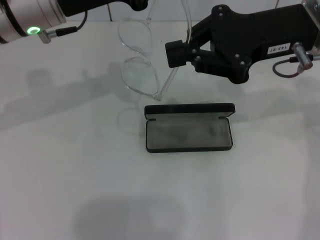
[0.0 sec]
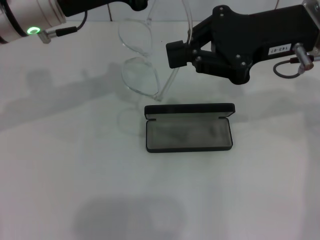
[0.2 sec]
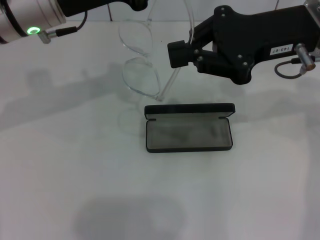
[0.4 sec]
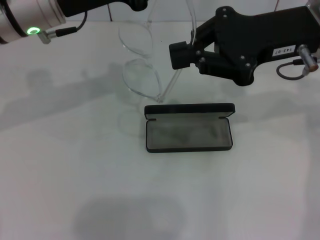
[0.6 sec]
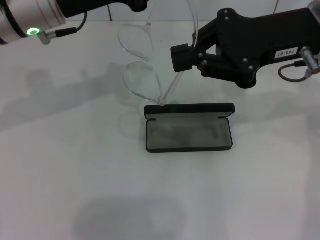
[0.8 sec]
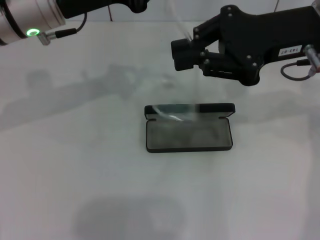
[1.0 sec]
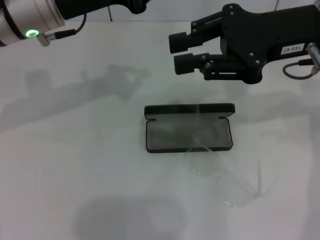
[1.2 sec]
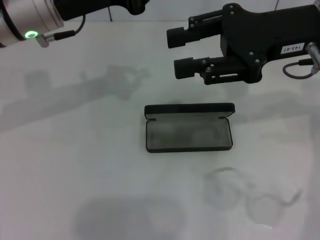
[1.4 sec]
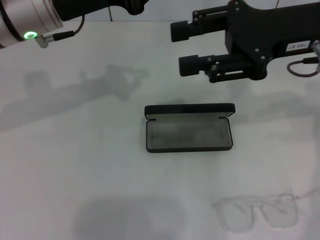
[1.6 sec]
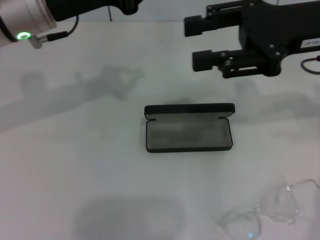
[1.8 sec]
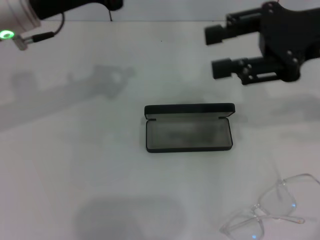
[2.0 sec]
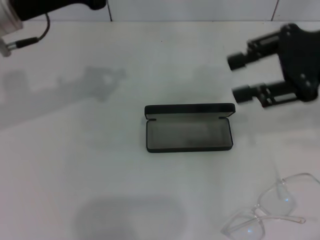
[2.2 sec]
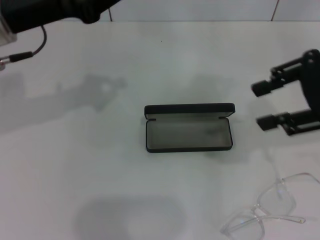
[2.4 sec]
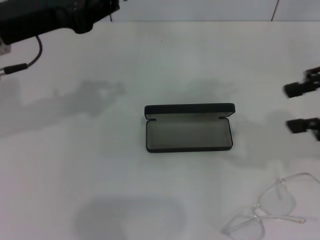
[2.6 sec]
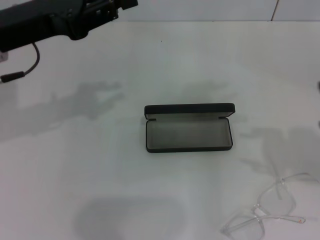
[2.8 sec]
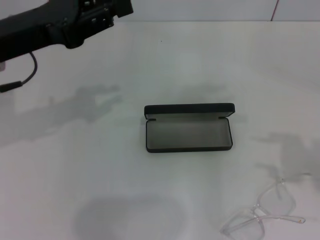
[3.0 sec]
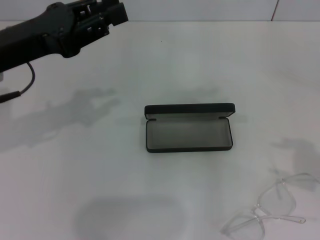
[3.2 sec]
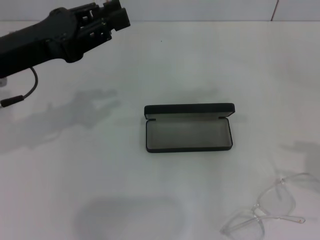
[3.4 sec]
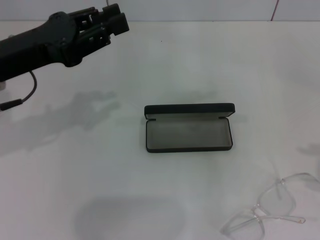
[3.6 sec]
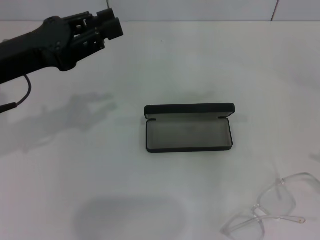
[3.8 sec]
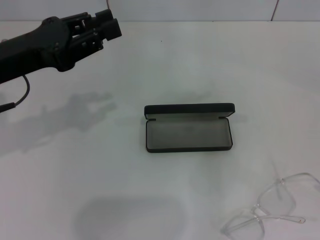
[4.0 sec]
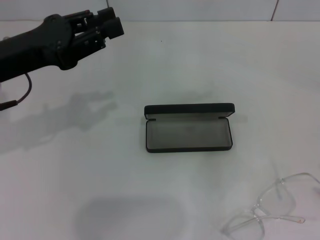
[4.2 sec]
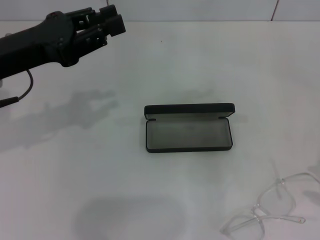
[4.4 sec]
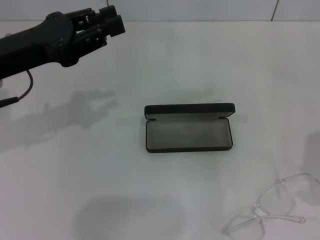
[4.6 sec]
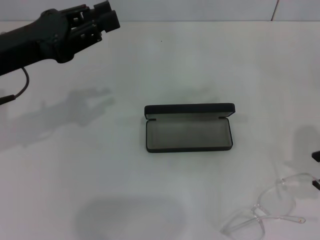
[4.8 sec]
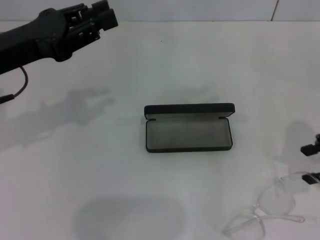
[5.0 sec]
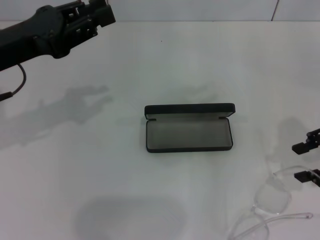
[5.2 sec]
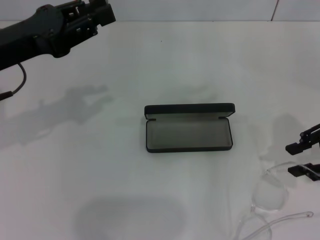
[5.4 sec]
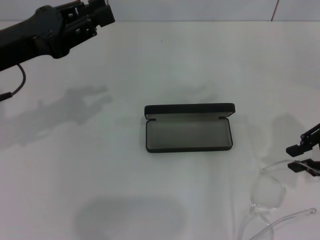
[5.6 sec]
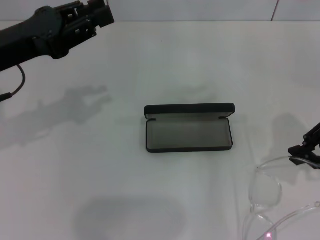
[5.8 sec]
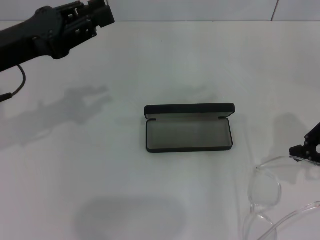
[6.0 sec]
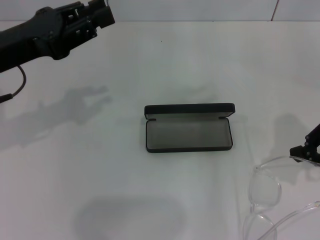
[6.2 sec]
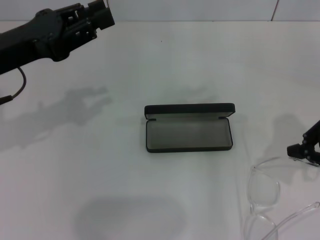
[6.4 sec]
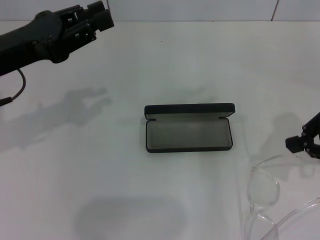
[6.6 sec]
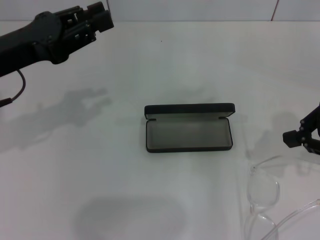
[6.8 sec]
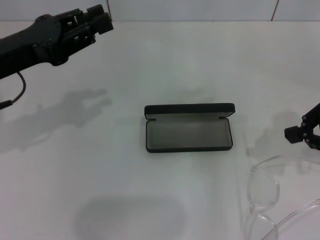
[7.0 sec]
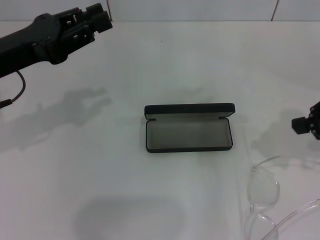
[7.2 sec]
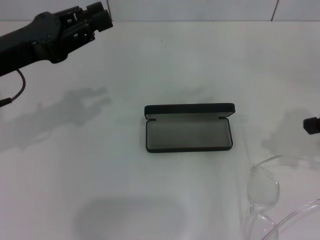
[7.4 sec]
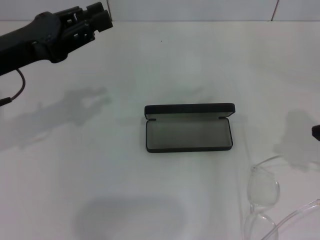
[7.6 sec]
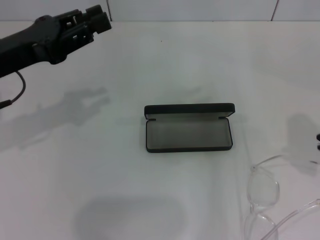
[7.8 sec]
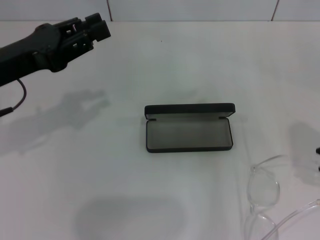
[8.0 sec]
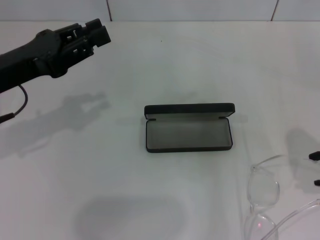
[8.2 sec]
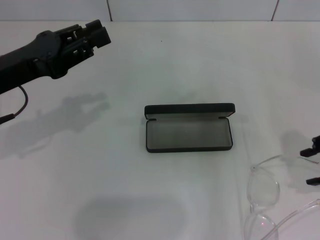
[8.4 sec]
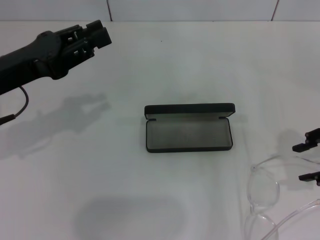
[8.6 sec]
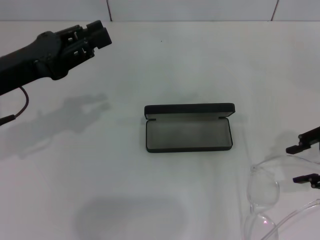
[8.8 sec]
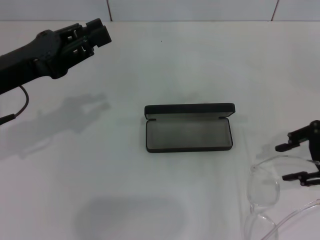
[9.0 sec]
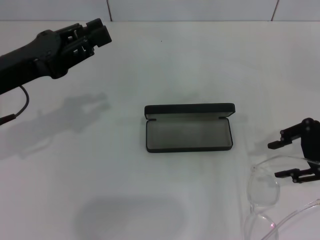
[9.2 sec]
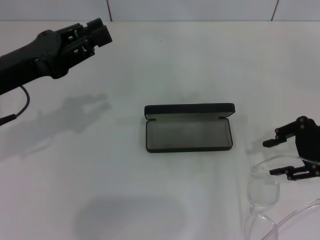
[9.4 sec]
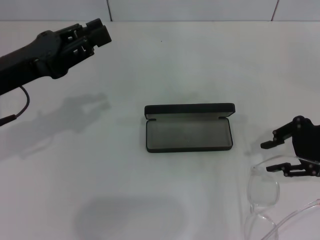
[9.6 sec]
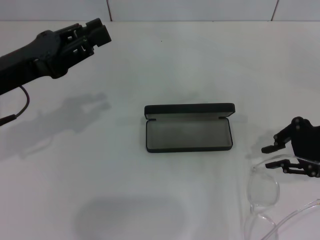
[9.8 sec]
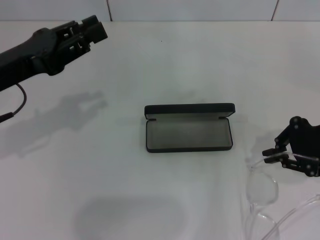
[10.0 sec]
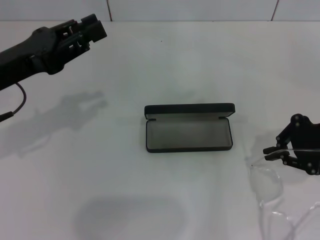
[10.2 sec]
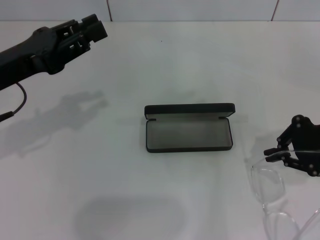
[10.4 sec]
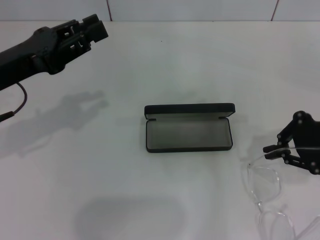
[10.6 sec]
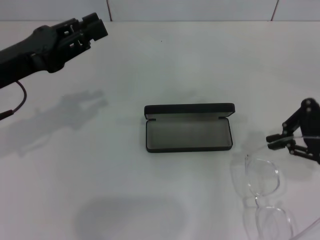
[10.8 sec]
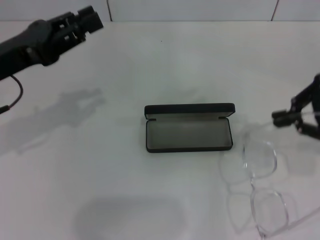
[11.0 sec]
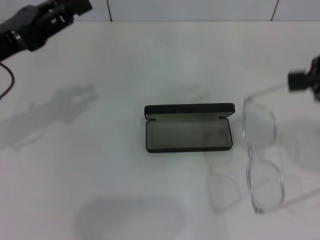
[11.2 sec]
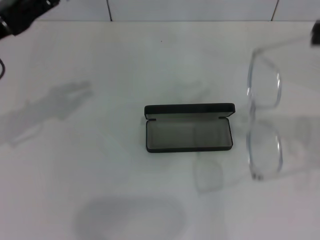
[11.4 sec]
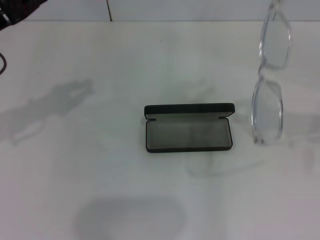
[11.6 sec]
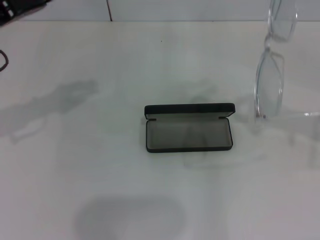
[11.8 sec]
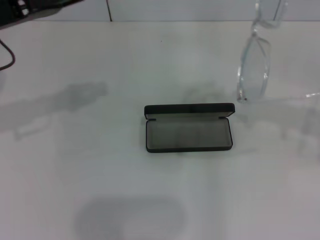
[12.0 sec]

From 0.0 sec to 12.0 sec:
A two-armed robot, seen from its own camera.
Step, from 0.0 sec to 10.0 sec: Grab the frame with your right hand.
From 0.0 sec to 1.6 sec: The right gripper opens its fingers.
From 1.6 sec to 3.0 sec: The left gripper heads to the left, covering approximately 5 cm, while the right gripper is displaced to the right and backward by roughly 20 cm.
From 3.0 sec to 4.4 sec: The right gripper goes approximately 10 cm downward.
From 4.4 sec to 6.0 sec: The right gripper goes approximately 10 cm to the left and forward, and closes.
From 6.0 sec to 7.6 sec: There are only small adjustments of the grippers.
From 7.6 sec to 9.0 sec: The right gripper moves some 5 cm, and opens its fingers.
From 9.0 sec to 10.4 sec: The right gripper closes its fingers.
From 10.4 sec to 12.0 sec: The left gripper moves upward, approximately 5 cm, while the right gripper shifts roughly 10 cm upward.

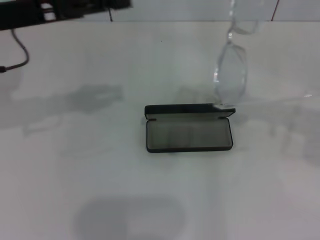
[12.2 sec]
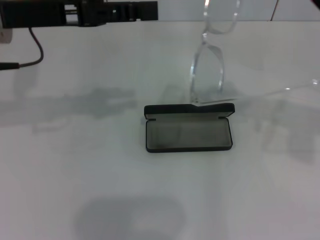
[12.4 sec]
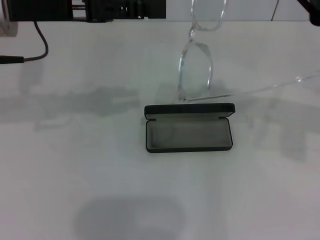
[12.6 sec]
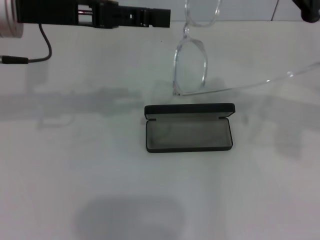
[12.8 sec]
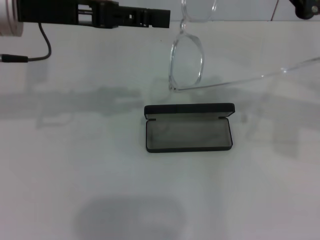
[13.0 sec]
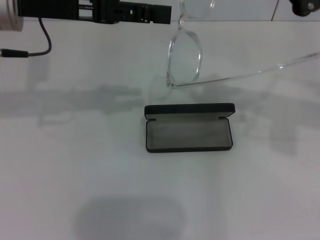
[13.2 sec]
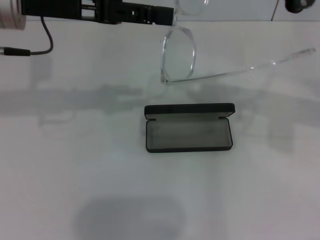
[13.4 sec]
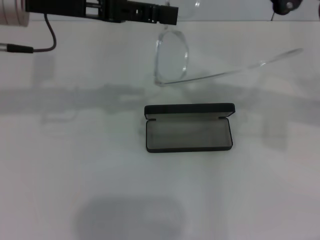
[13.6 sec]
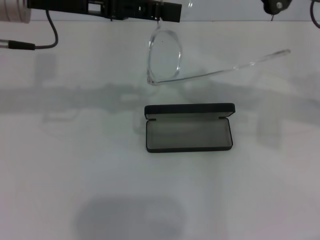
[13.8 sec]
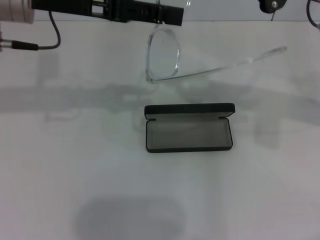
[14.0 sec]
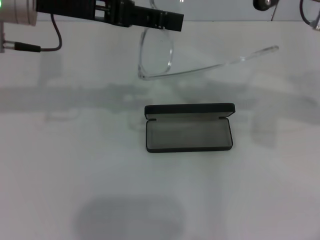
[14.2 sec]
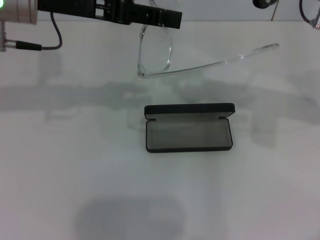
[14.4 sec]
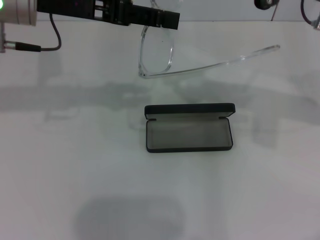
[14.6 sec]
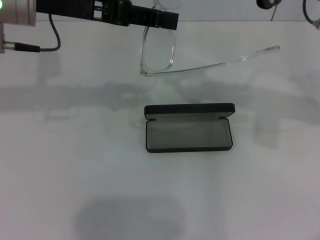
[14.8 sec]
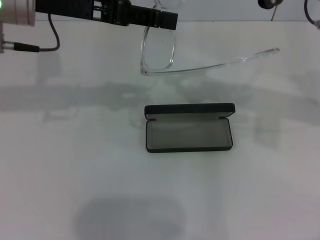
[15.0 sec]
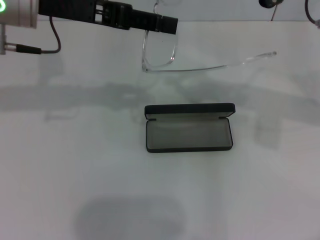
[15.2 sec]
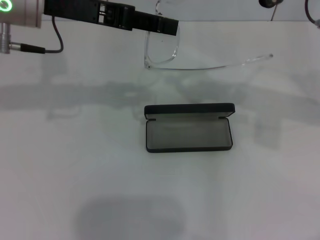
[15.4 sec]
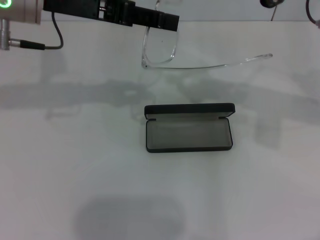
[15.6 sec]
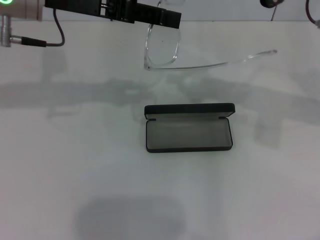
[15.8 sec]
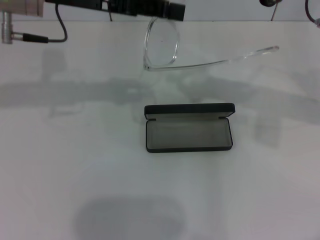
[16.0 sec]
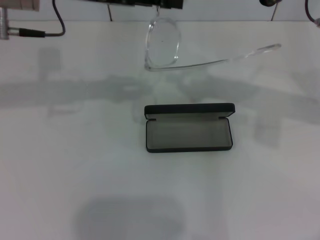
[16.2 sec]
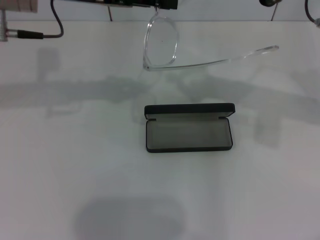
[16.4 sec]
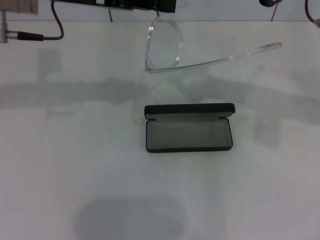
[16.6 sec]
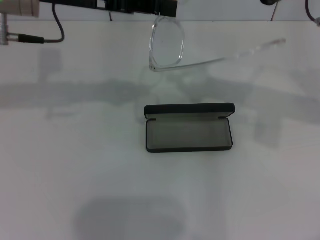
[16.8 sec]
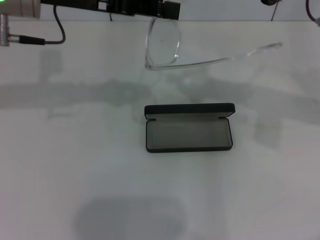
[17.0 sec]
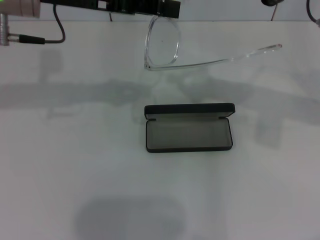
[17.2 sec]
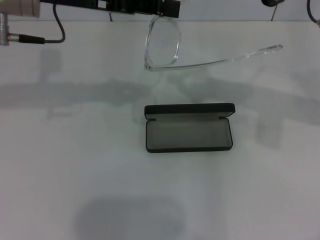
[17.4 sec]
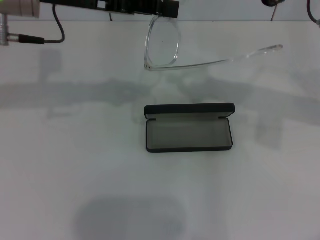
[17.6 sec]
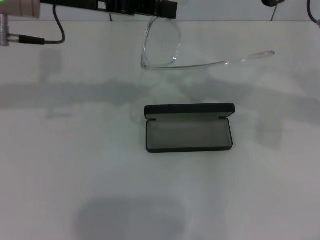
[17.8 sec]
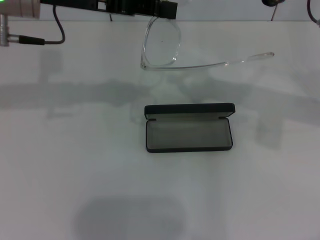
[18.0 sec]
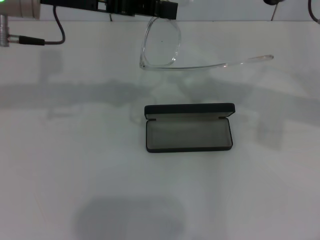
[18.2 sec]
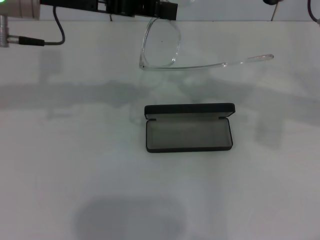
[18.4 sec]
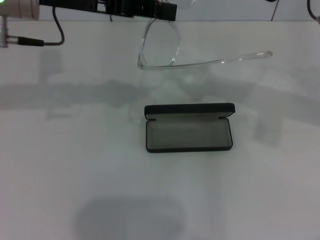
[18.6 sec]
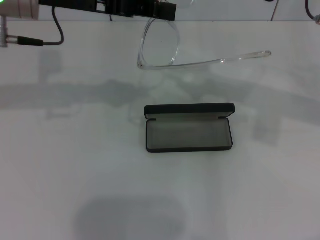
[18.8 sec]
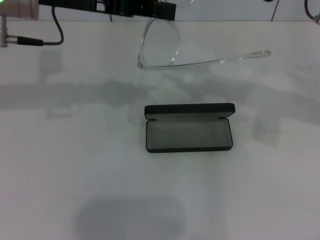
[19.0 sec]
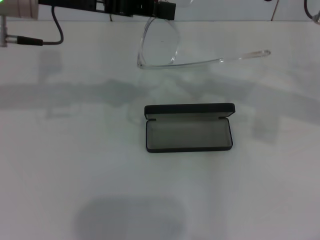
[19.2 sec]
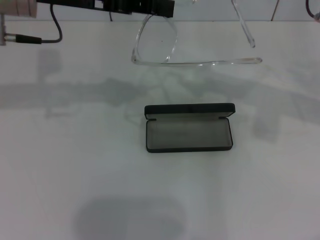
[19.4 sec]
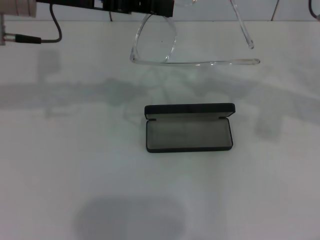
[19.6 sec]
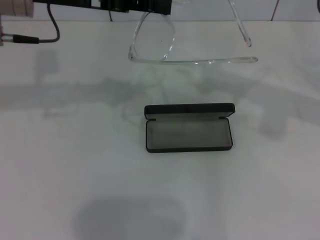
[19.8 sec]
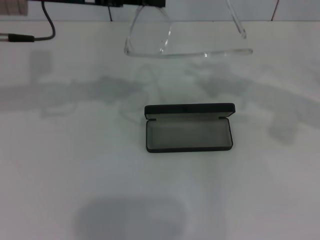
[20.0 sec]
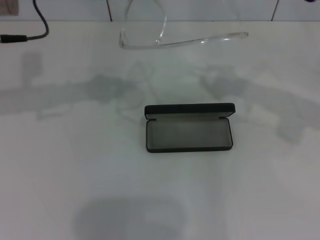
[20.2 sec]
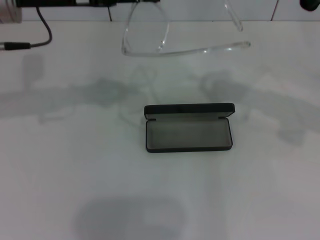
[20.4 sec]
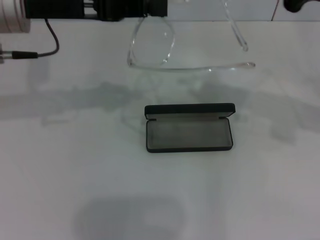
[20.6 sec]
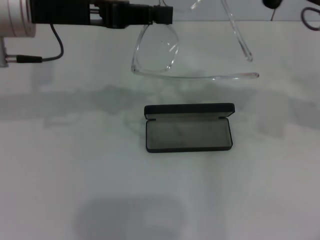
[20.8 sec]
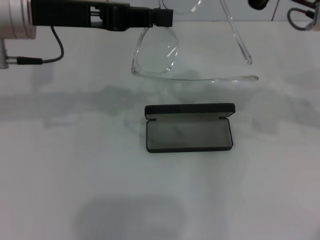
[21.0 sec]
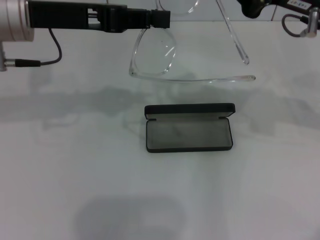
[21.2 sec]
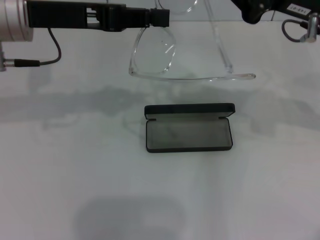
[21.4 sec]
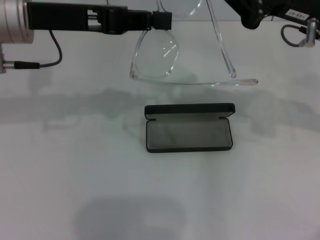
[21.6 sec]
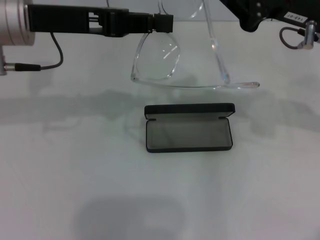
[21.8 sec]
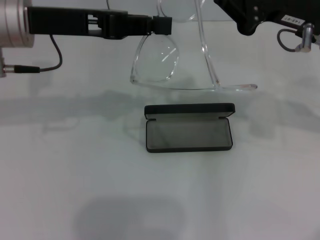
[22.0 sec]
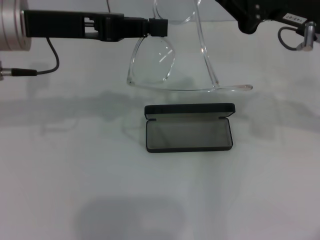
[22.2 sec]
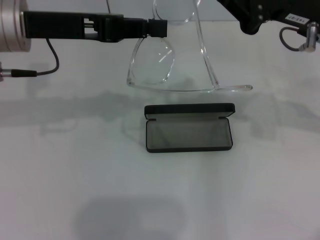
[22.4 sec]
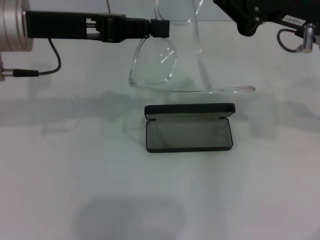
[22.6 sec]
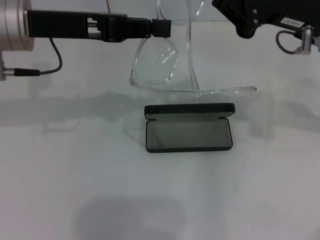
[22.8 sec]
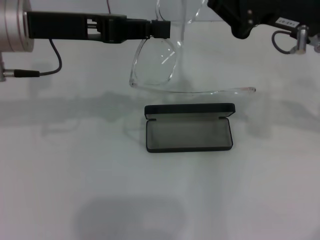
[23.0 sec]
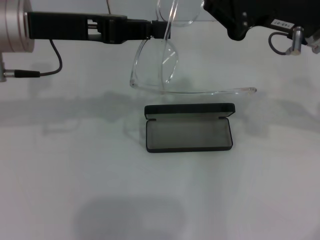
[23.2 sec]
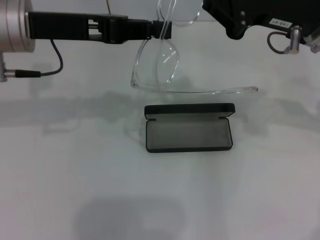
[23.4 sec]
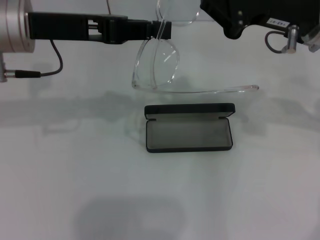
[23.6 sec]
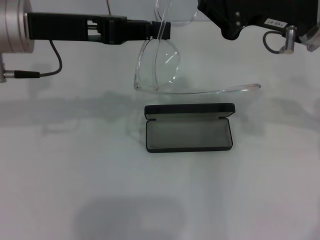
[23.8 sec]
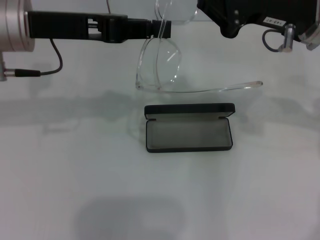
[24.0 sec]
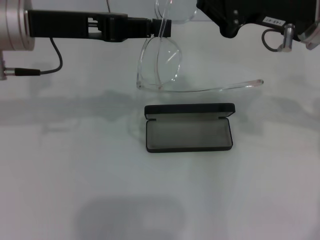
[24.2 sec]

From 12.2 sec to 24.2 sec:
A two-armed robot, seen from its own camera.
Step, from 12.2 sec to 19.2 sec: Grab the glasses with your left hand.
From 12.2 sec to 13.8 sec: The right gripper moves to the left, roughly 5 cm, while the left gripper moves about 5 cm.
From 13.8 sec to 16.6 sec: The grippers stay close to where they were, moving slightly.
From 16.6 sec to 18.2 sec: Neither gripper changes place.
From 18.2 sec to 19.8 sec: The grippers stay close to where they were, moving slightly.
From 21.2 sec to 22.6 sec: Both grippers stay put.
From 22.6 sec to 24.2 sec: There are only small adjustments of the grippers.
